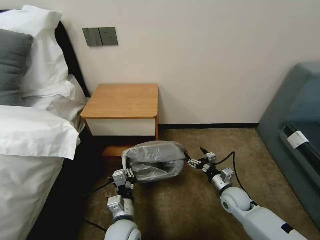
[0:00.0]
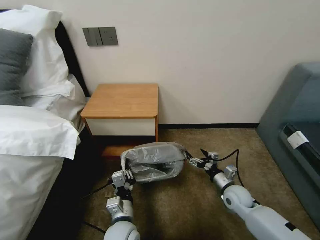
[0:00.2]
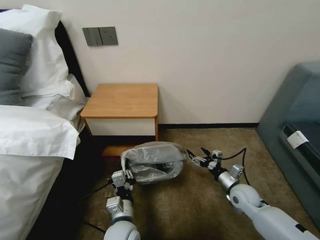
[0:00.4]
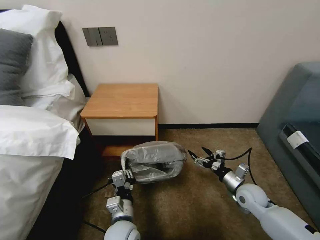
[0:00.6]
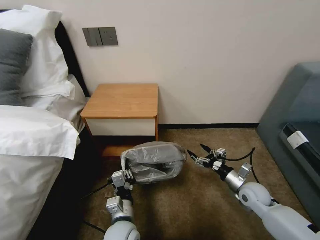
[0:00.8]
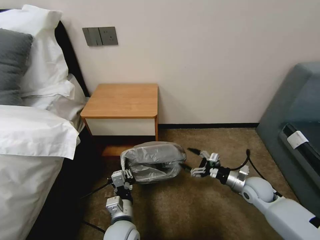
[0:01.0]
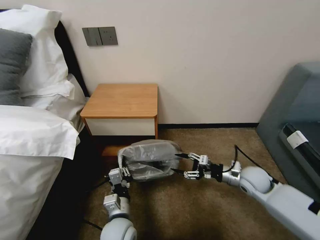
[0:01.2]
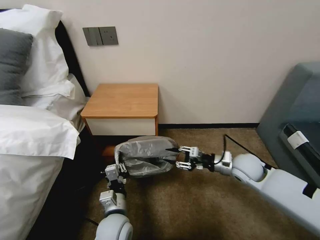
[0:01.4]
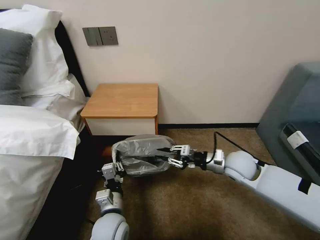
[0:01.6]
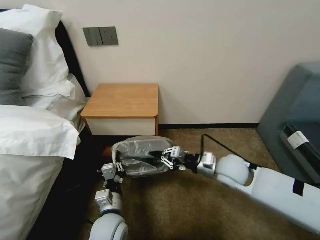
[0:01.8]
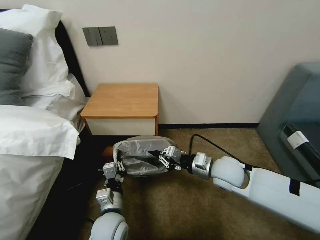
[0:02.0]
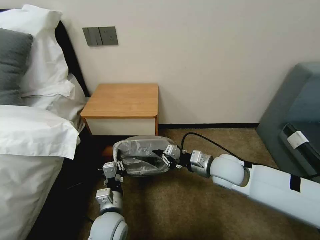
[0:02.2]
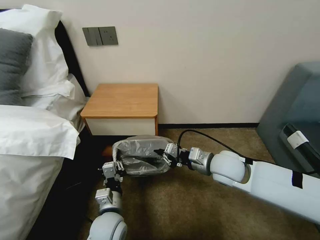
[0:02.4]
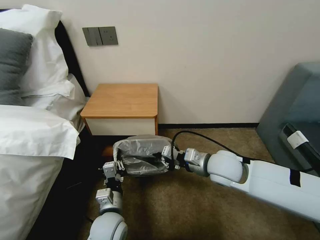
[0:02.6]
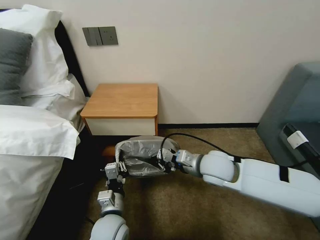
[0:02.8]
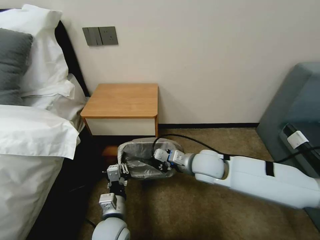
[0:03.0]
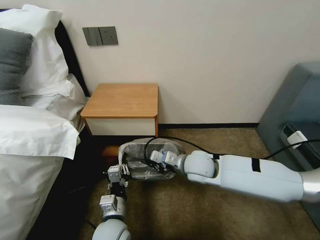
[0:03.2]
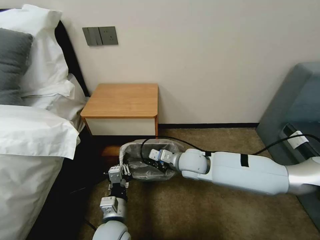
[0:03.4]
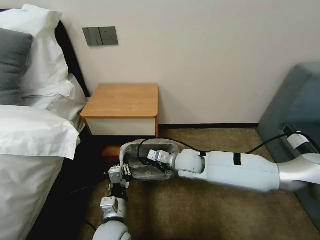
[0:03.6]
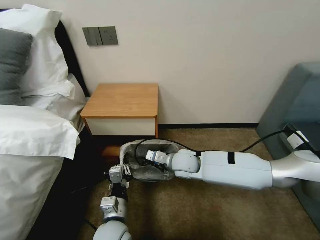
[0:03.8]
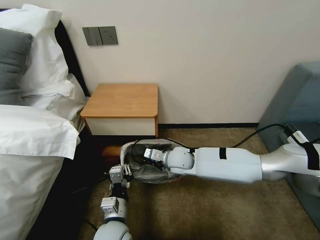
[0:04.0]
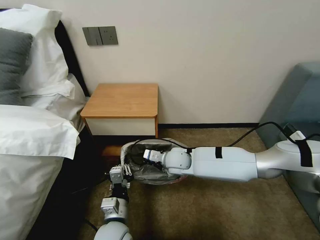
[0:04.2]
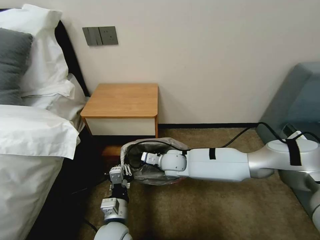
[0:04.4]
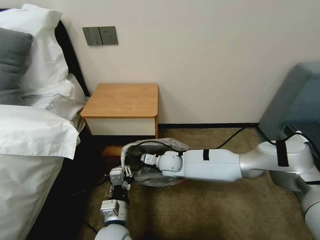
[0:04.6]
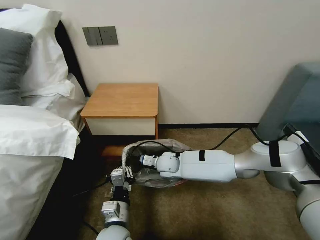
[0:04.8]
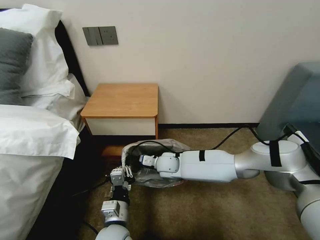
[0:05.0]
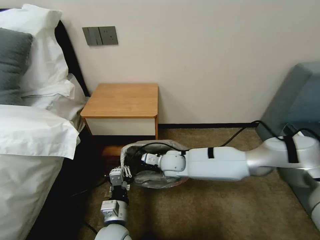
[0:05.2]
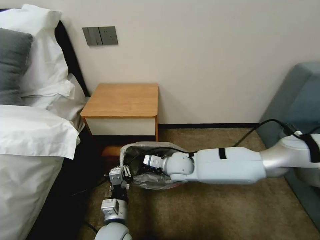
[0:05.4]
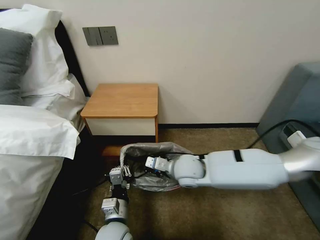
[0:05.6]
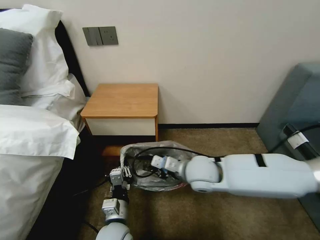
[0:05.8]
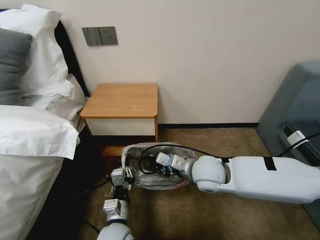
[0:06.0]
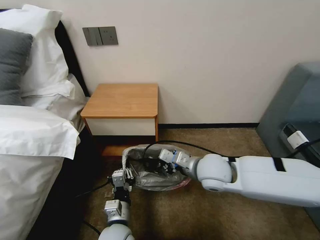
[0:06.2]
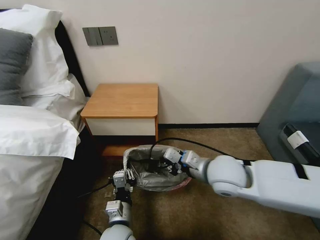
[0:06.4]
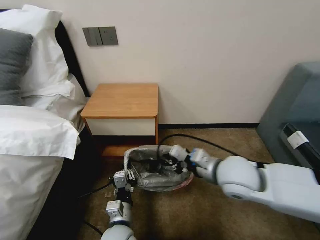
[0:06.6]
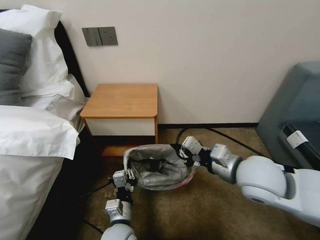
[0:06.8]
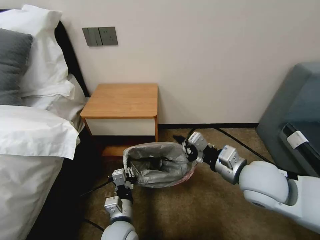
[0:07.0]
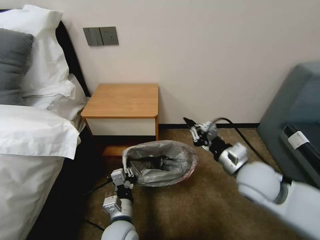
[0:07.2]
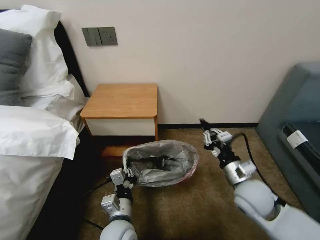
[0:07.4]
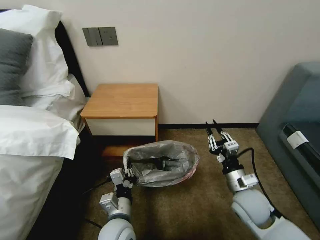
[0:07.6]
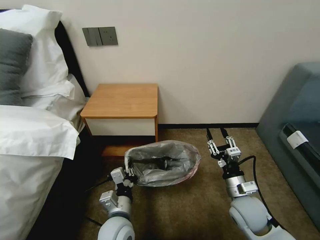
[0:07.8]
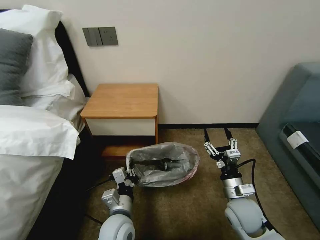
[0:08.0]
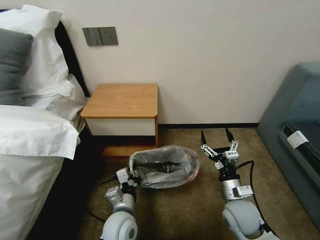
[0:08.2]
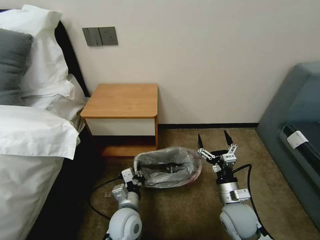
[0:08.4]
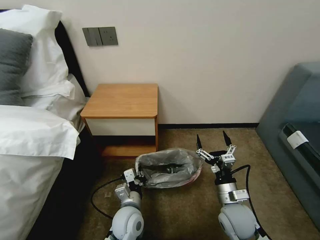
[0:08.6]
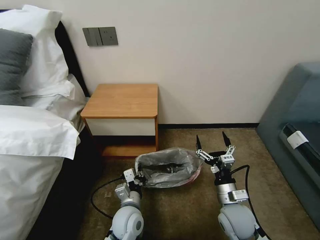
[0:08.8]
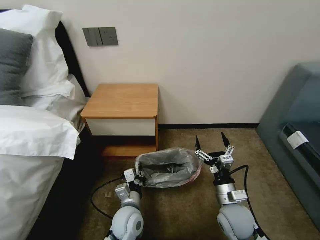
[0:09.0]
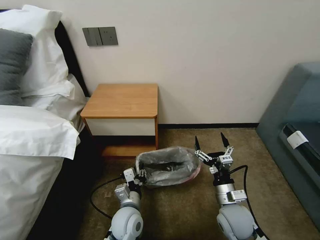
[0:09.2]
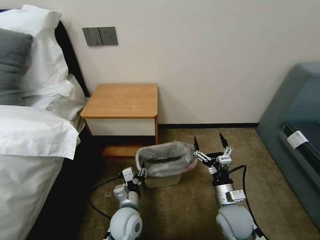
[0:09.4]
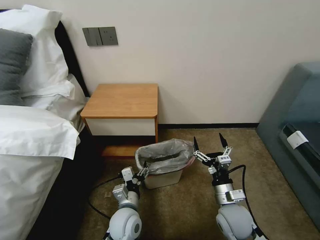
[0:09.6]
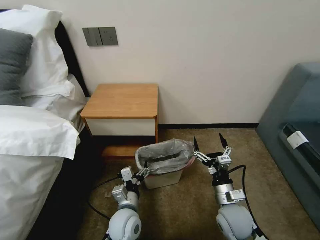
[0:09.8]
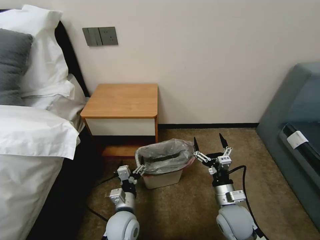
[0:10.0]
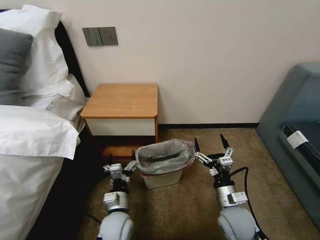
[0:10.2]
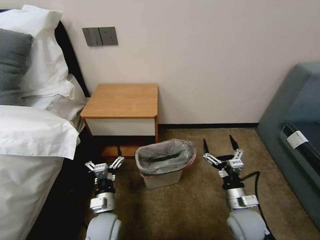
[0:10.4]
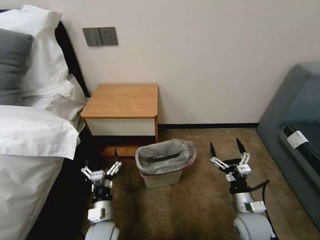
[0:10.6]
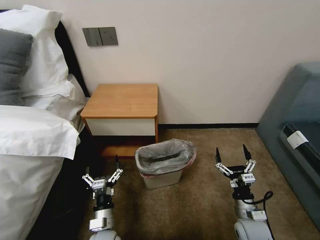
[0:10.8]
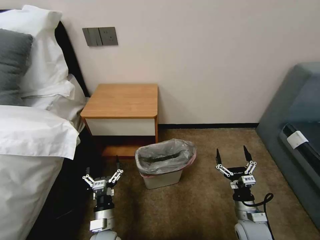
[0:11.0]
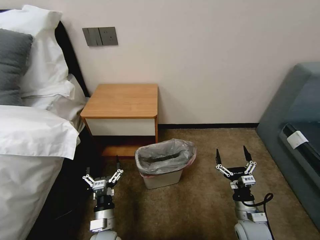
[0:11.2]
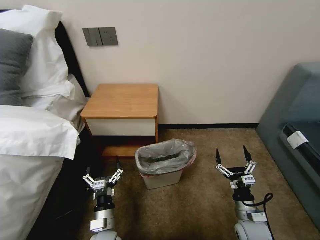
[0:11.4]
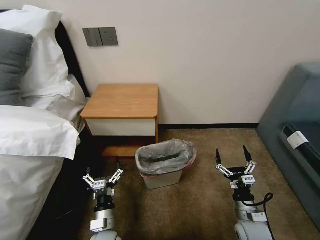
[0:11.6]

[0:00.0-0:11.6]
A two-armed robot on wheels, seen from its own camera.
Task of the whole recording: Pick up the garbage bag from the table and place it over the trash can.
0:00.0 to 0:01.4: The right gripper is displaced upward and forward by approximately 15 cm, and closes.
0:01.4 to 0:02.8: The right gripper heads to the left and upward, covering some 15 cm, and closes.
0:02.8 to 0:04.4: The right gripper shifts roughly 15 cm to the left, downward and forward.
0:04.4 to 0:05.8: The right gripper goes some 15 cm upward, backward and to the right.
0:05.8 to 0:07.2: The right gripper goes about 15 cm to the right.
0:07.2 to 0:08.8: The left gripper heads forward, covering approximately 5 cm, while the right gripper goes some 15 cm downward, and opens up.
0:08.8 to 0:10.2: The left gripper opens its fingers.
0:10.2 to 0:11.6: The left gripper shifts by roughly 5 cm; the right gripper heads downward and to the right, covering roughly 10 cm.

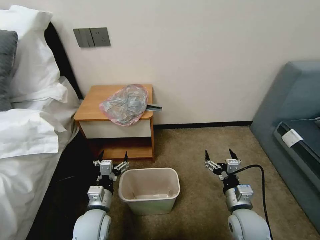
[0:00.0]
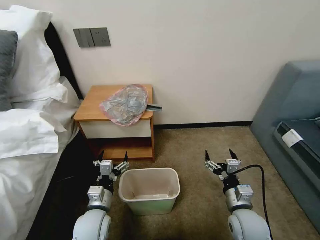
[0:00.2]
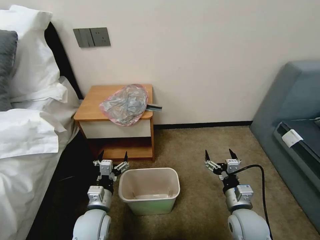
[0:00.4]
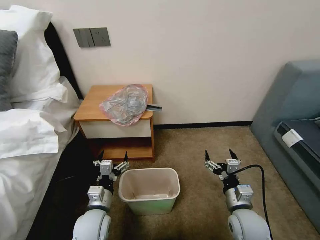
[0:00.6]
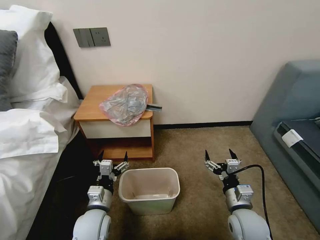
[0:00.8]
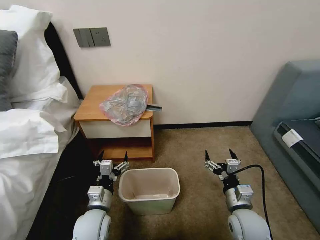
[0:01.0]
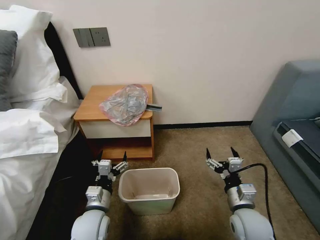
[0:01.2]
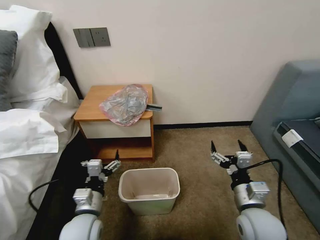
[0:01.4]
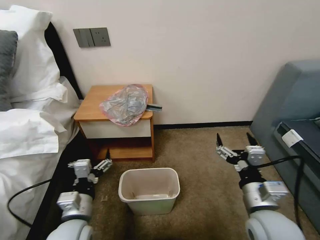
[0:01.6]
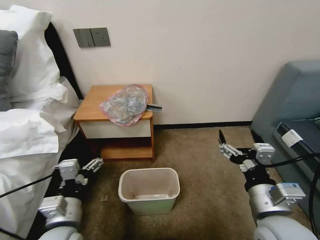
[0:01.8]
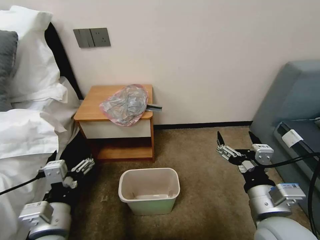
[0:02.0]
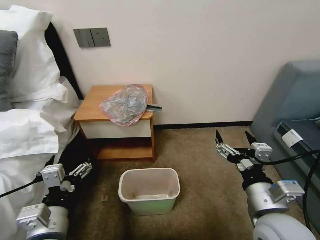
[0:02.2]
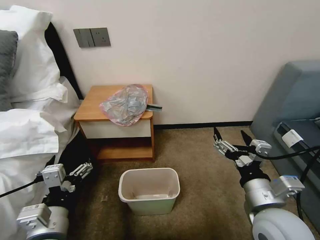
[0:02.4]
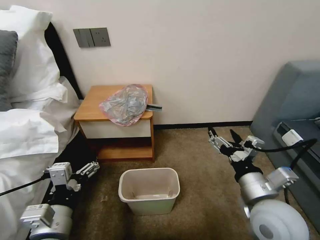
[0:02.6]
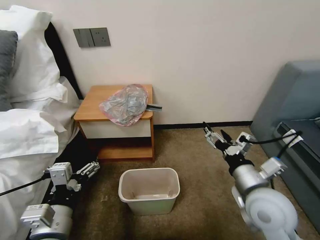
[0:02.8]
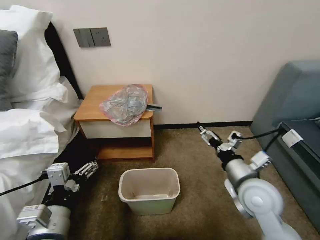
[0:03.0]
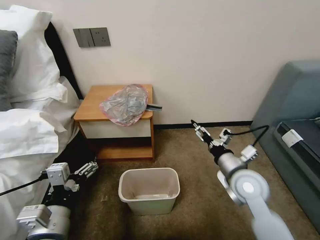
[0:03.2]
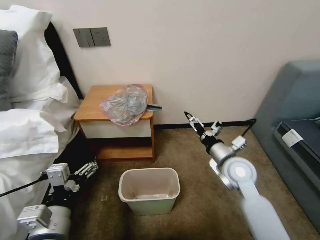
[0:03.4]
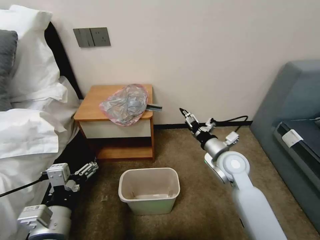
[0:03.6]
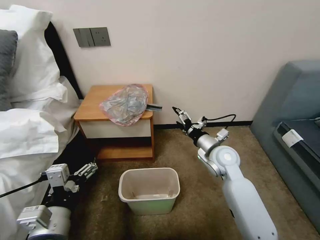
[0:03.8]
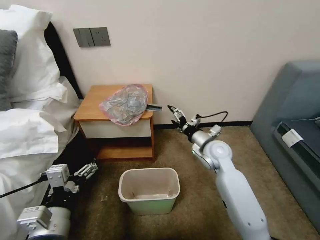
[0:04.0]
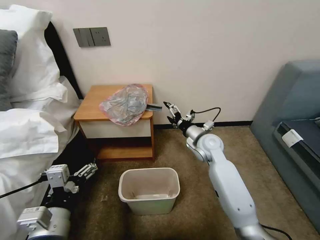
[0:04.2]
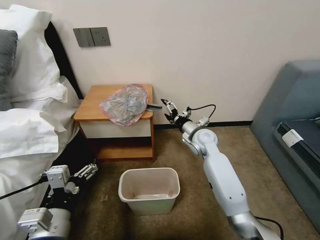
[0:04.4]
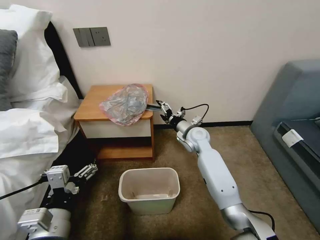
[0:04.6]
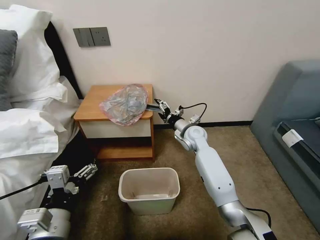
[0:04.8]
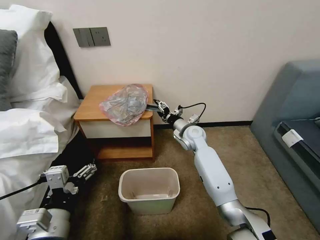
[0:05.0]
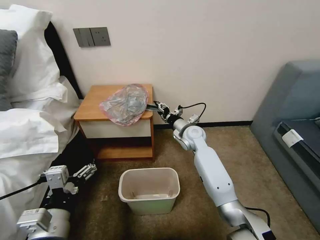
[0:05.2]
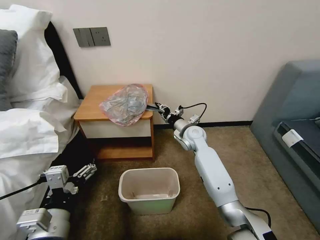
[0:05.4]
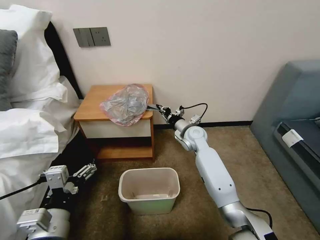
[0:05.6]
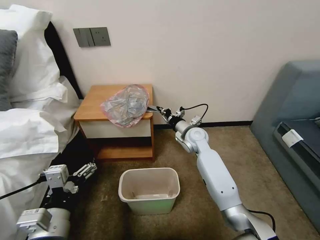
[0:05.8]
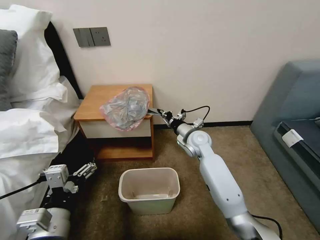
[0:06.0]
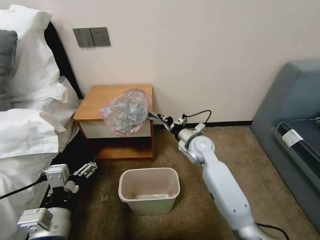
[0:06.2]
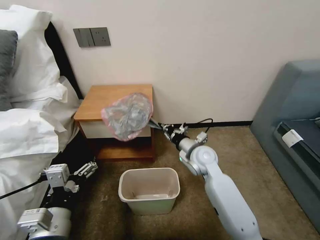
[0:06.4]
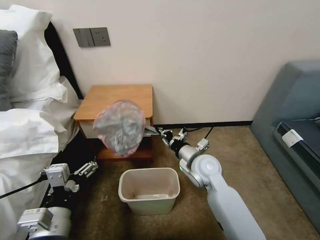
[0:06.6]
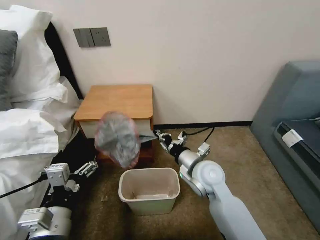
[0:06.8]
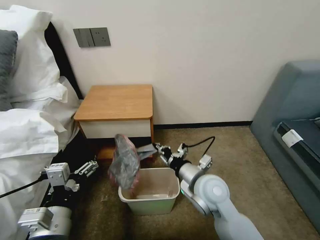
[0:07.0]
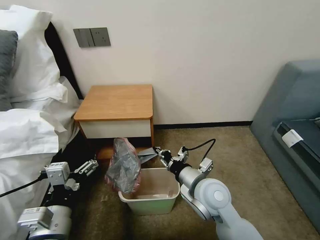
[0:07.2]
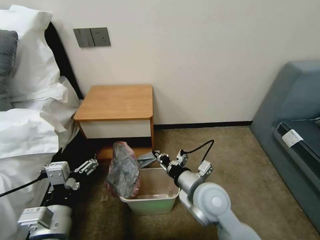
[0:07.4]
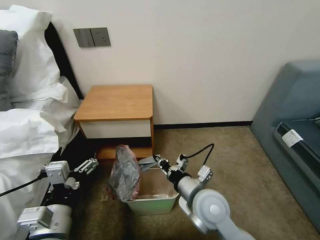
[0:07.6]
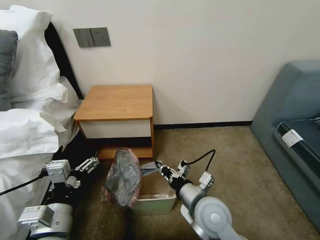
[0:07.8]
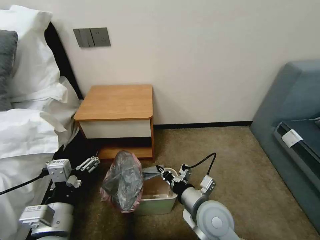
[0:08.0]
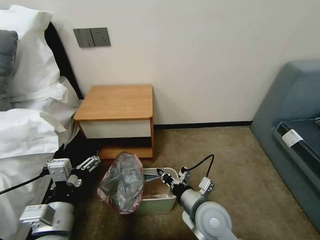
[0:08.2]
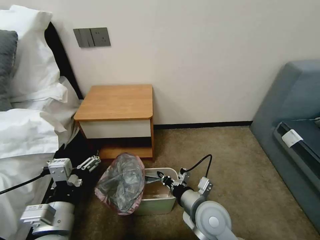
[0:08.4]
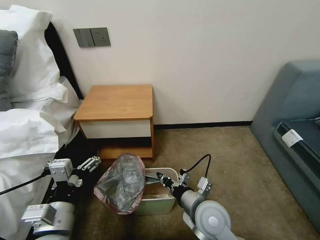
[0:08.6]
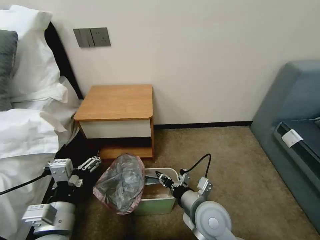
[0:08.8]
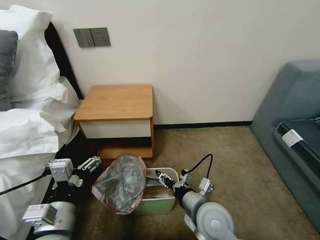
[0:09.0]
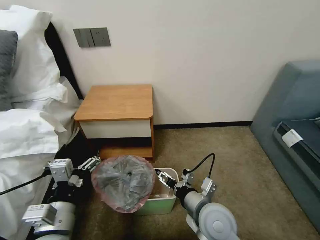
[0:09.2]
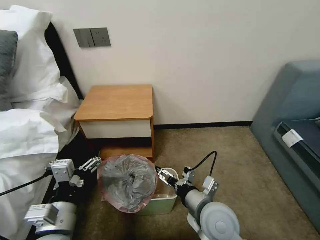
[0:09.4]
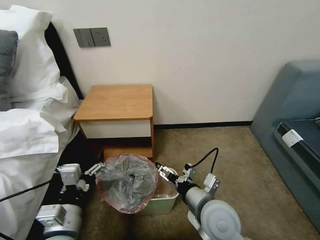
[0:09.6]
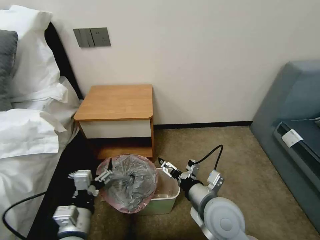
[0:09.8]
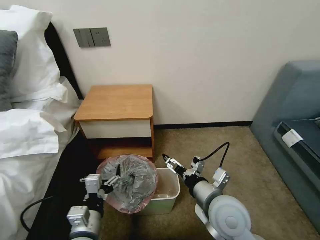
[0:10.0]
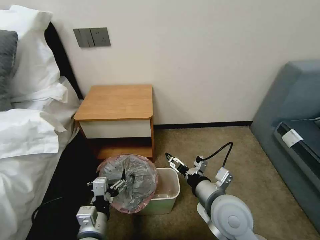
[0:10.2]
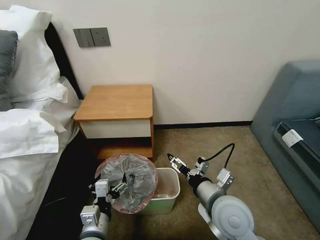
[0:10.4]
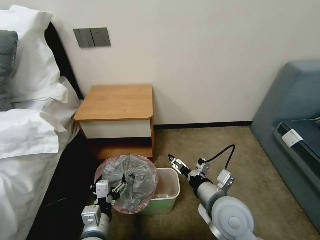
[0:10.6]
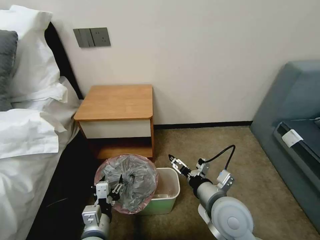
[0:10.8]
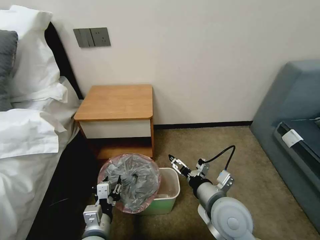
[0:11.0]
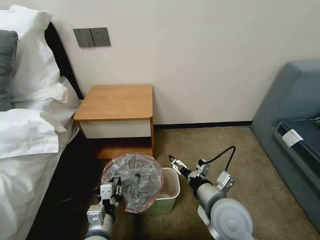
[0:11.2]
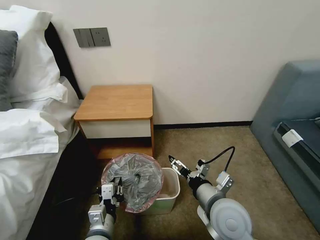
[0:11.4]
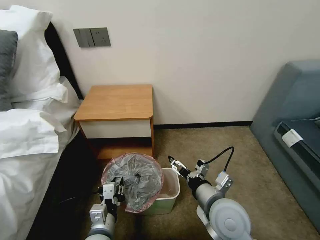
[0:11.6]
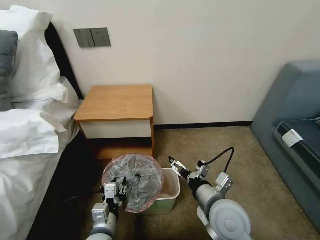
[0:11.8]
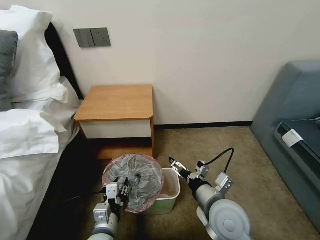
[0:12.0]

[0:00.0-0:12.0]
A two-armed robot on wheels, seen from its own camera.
Task of the whole recording: Pick up the garbage bag from the table and place it over the trash can.
0:01.6 to 0:03.0: The left gripper moves upward and backward, roughly 10 cm. Meanwhile the right gripper shifts approximately 5 cm forward.
0:03.0 to 0:04.4: The right gripper heads forward, covering about 25 cm.
0:04.4 to 0:06.0: The right gripper closes.
0:06.0 to 0:07.6: The right gripper heads backward, covering roughly 25 cm.
0:07.6 to 0:09.0: The right gripper opens its fingers.
0:09.0 to 0:10.4: The right gripper moves about 5 cm, and opens up. Meanwhile the left gripper goes about 10 cm downward.
0:10.4 to 0:12.0: The left gripper closes its fingers.
